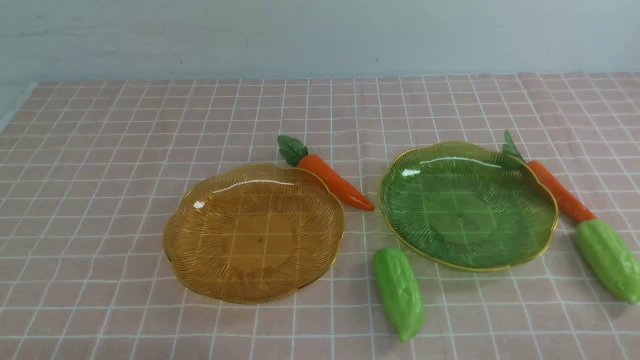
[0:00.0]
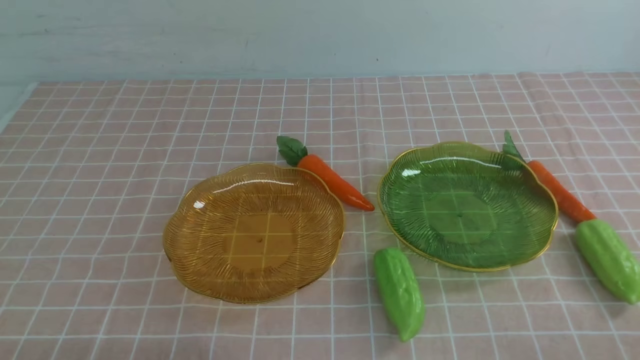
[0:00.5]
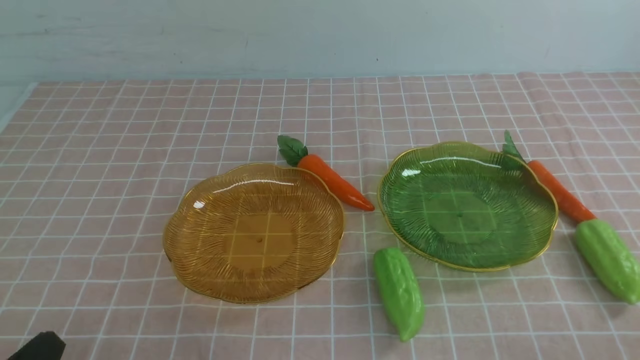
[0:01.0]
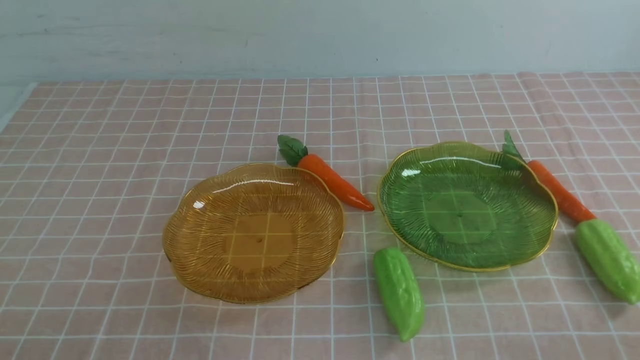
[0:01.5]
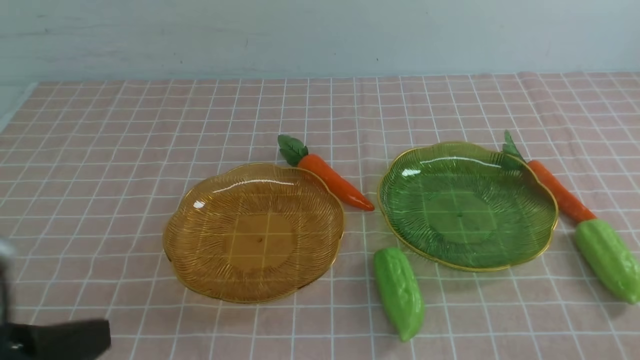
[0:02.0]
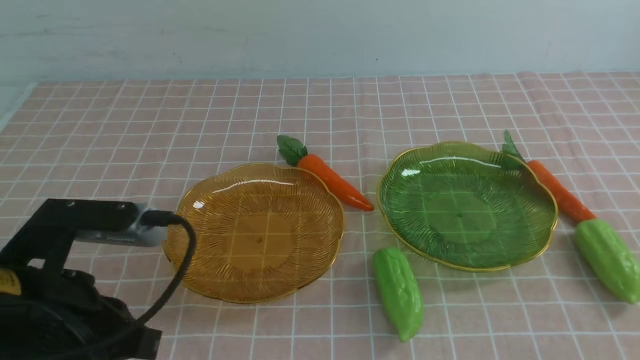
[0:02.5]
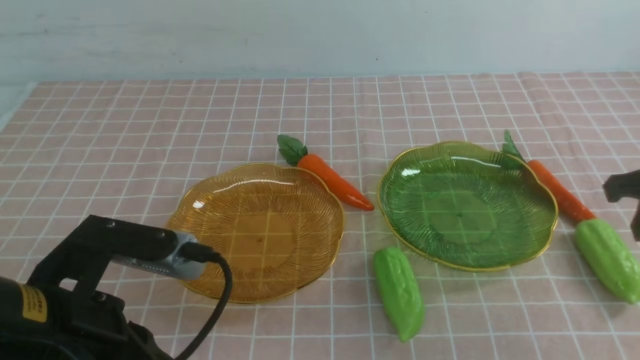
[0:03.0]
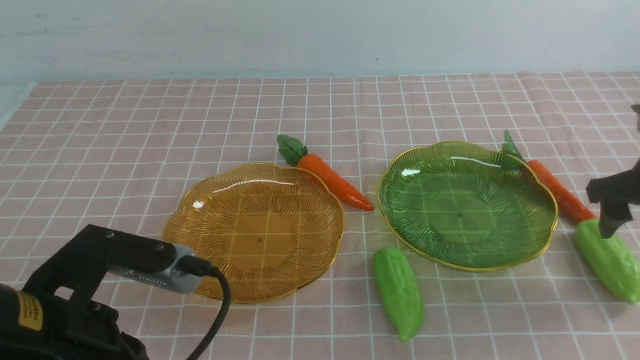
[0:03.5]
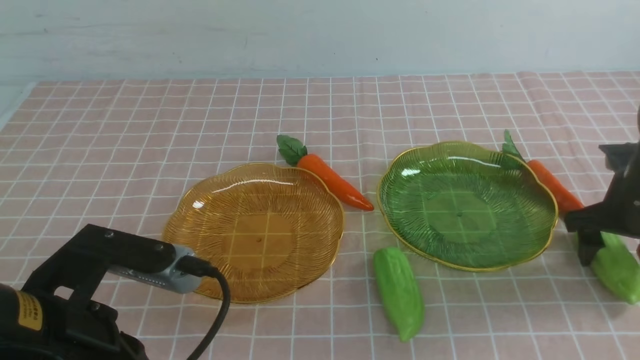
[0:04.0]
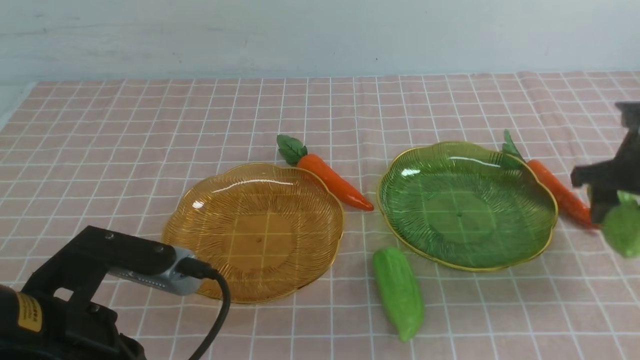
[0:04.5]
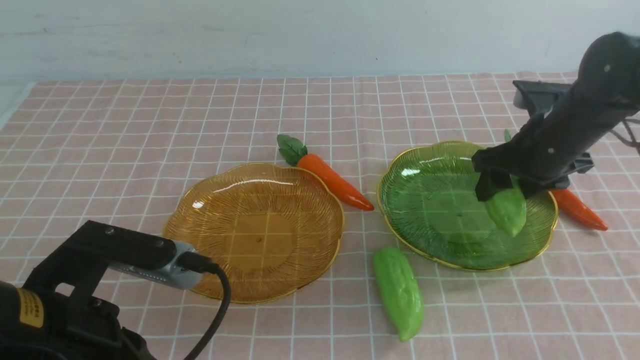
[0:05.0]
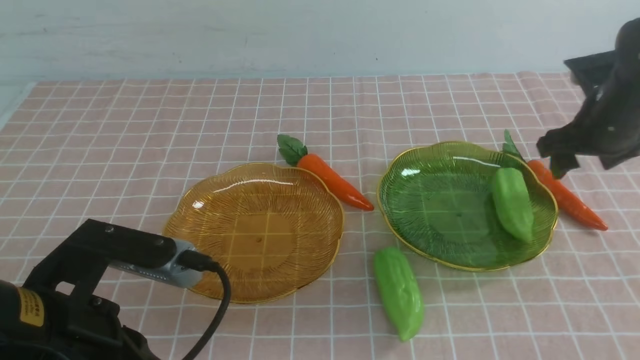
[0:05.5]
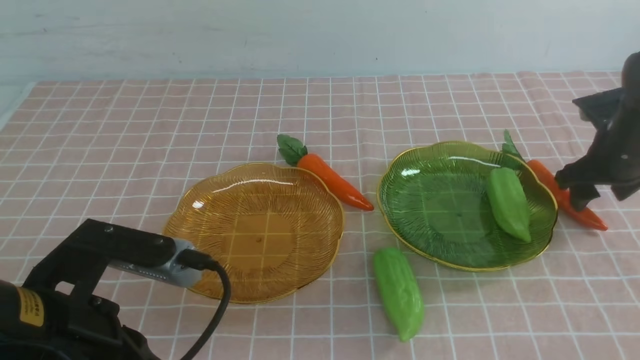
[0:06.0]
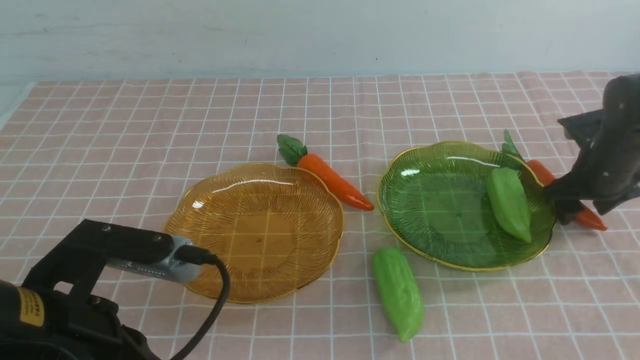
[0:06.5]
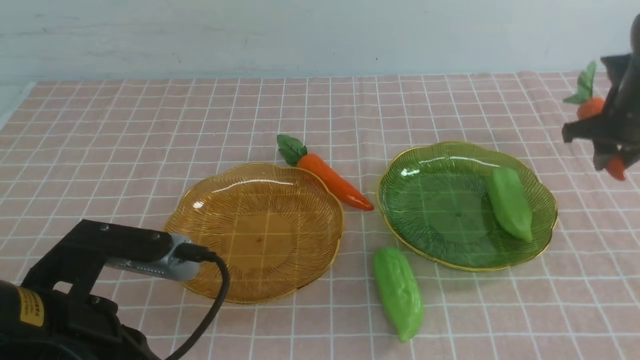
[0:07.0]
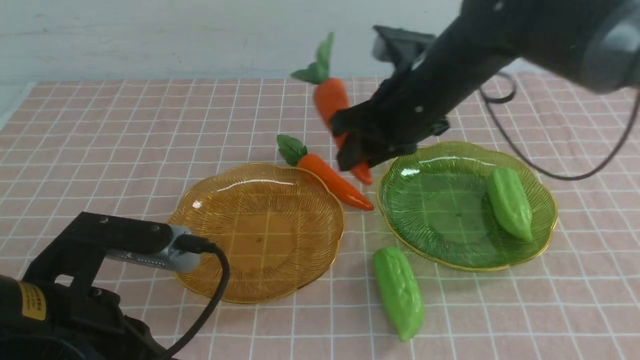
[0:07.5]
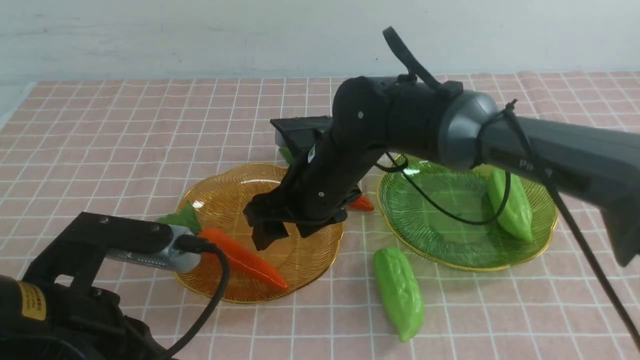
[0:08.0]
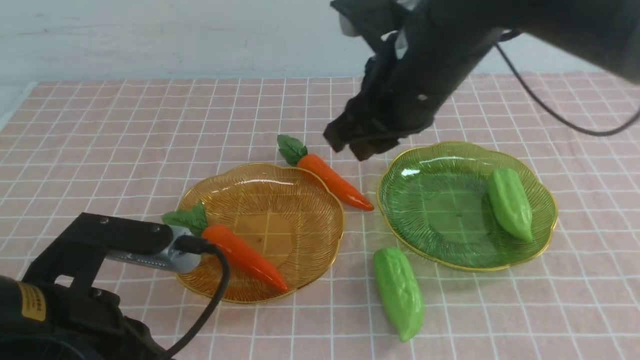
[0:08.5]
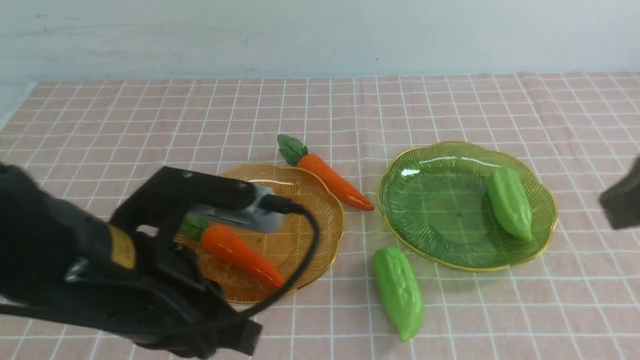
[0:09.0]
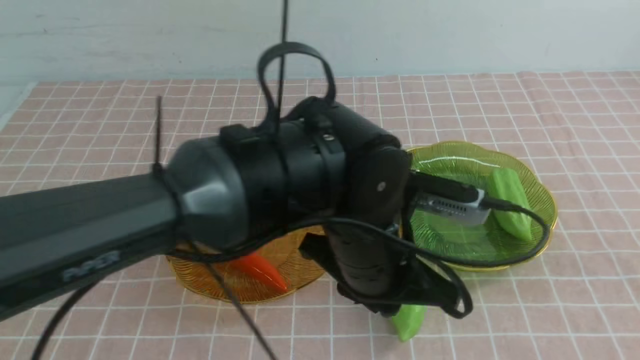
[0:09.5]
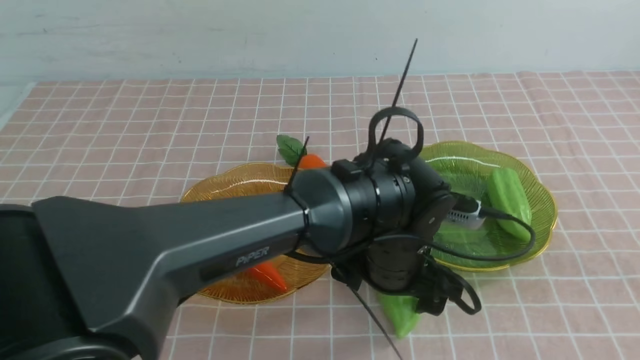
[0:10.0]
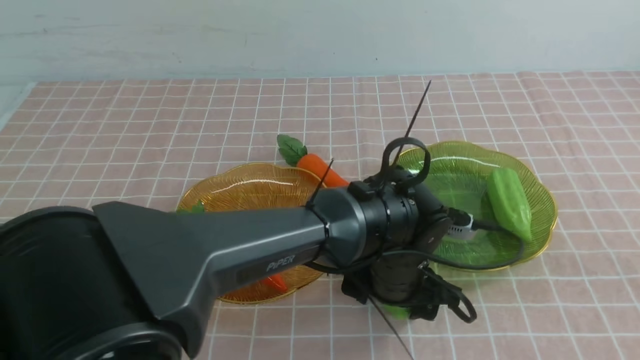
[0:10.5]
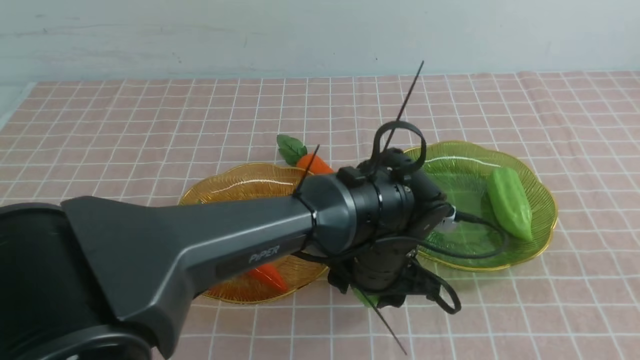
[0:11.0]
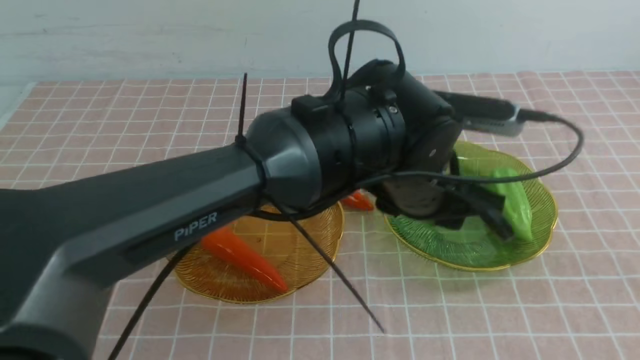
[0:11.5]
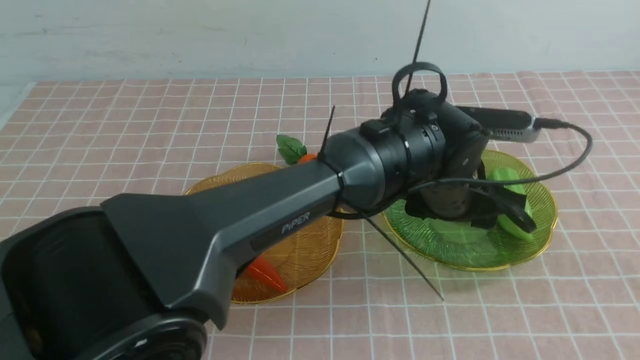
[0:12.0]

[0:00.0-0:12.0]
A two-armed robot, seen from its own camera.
Step, 0:00.0 to 0:05.0: Grab the chayote with your right arm and put it on the left plate.
Step, 0:05.5 to 0:07.5: use the right arm to grab a carrot and put it into the left plate.
0:00.0 to 0:02.0: The left gripper is displaced upward by approximately 10 cm.
0:02.0 to 0:04.0: The left gripper changes place by some 5 cm. The right gripper moves forward, some 30 cm, and opens.
0:04.0 to 0:06.0: The right gripper shifts some 5 cm forward, and goes to the left and returns, about 10 cm each way.
0:06.0 to 0:08.0: The right gripper is displaced to the left by about 35 cm, and closes, then reopens.
0:08.0 to 0:10.0: The right gripper shifts approximately 40 cm to the right, backward and upward, and closes up, while the left gripper is displaced to the right and forward by some 30 cm, and opens.
0:10.0 to 0:12.0: The left gripper shifts some 5 cm forward.

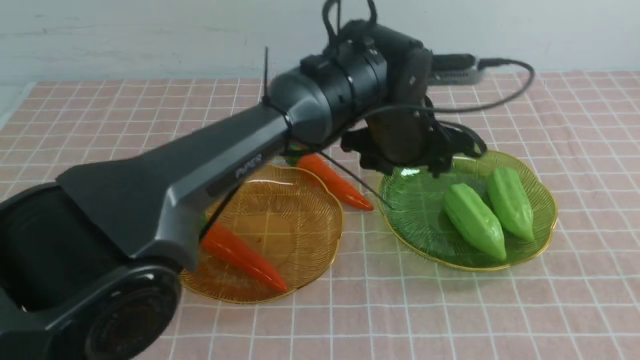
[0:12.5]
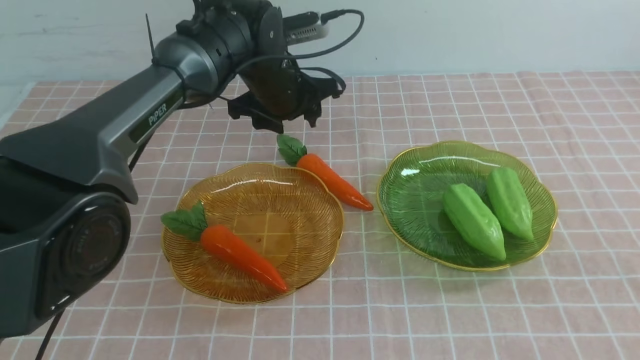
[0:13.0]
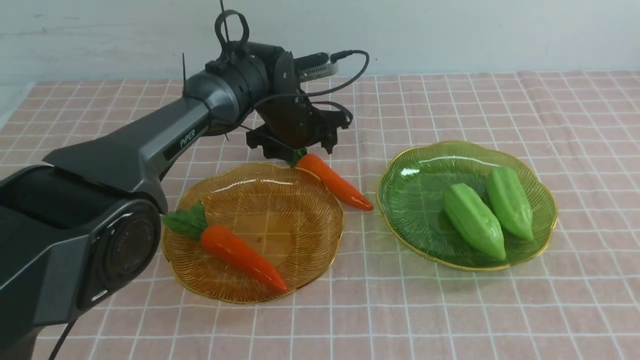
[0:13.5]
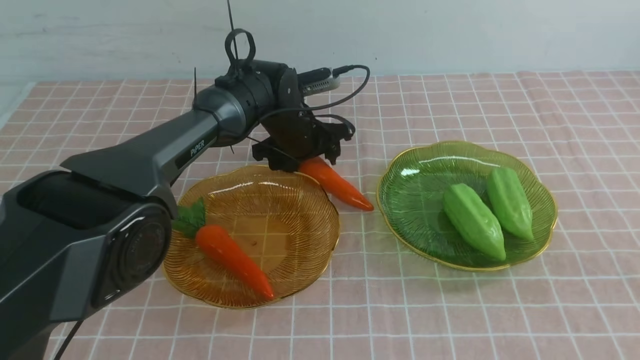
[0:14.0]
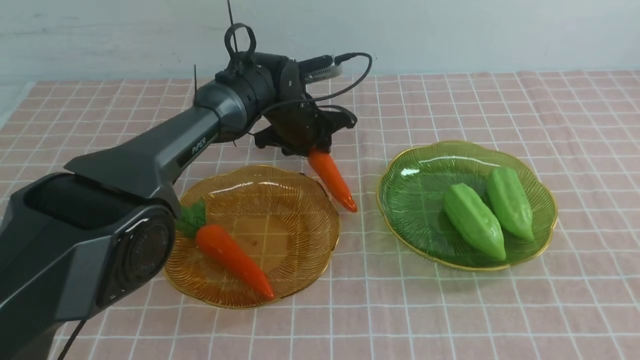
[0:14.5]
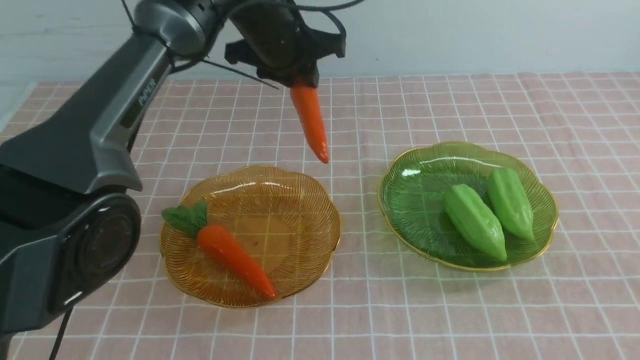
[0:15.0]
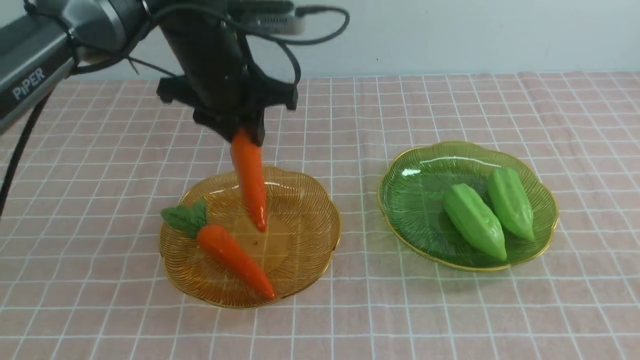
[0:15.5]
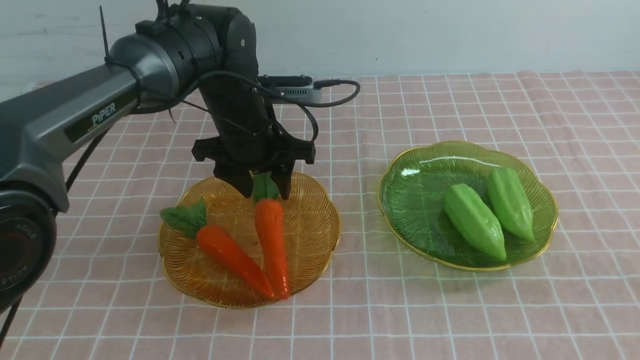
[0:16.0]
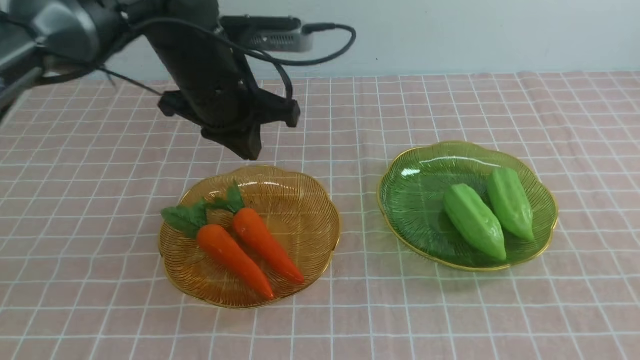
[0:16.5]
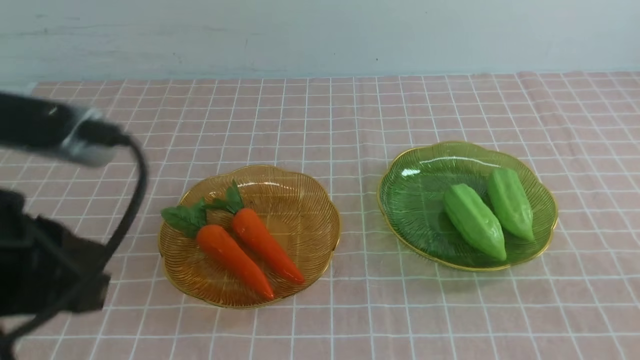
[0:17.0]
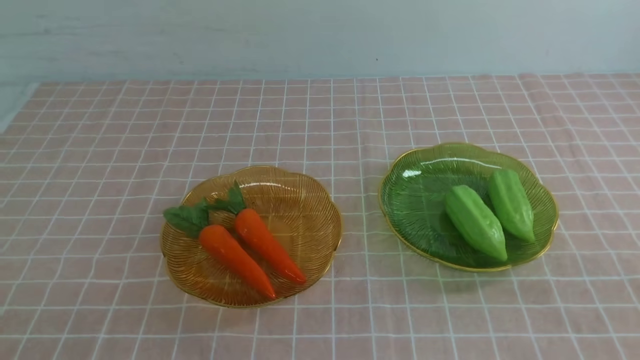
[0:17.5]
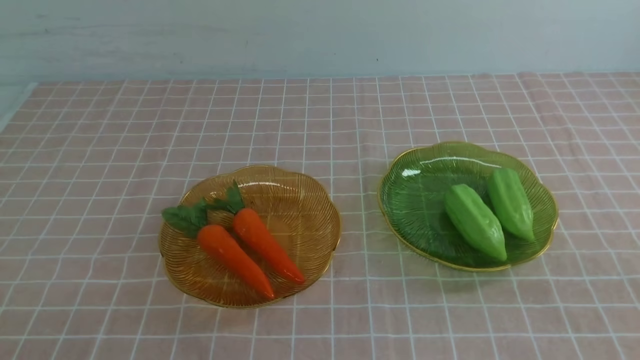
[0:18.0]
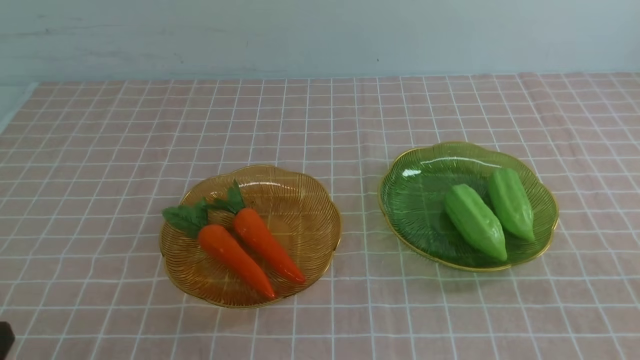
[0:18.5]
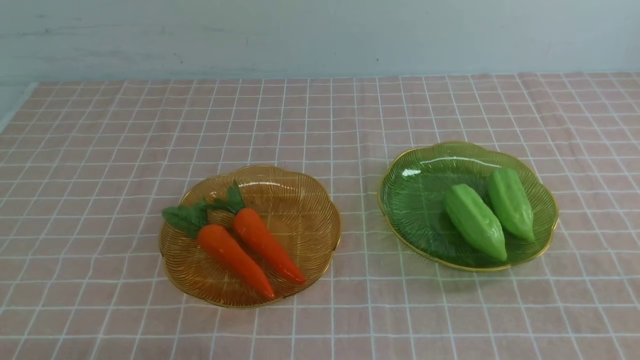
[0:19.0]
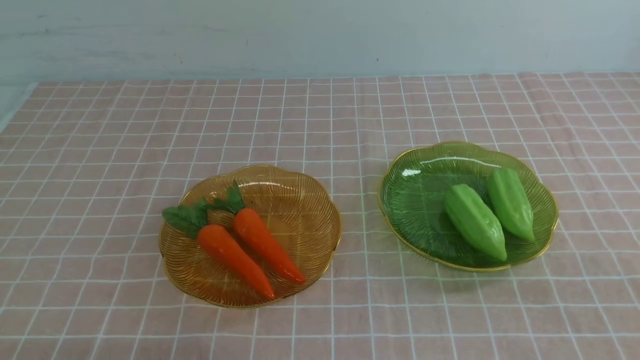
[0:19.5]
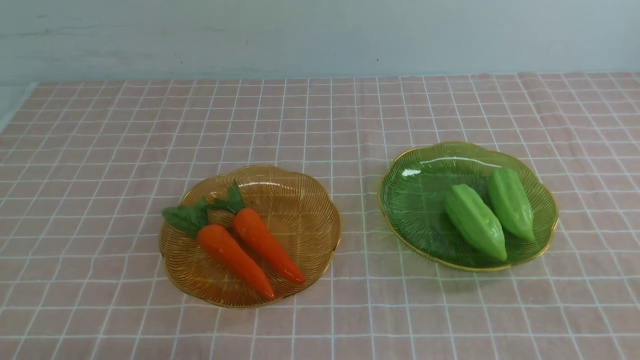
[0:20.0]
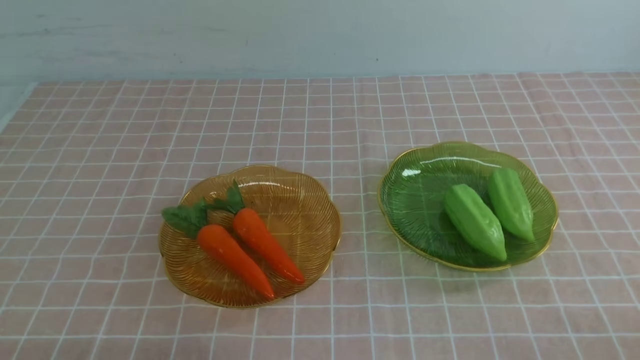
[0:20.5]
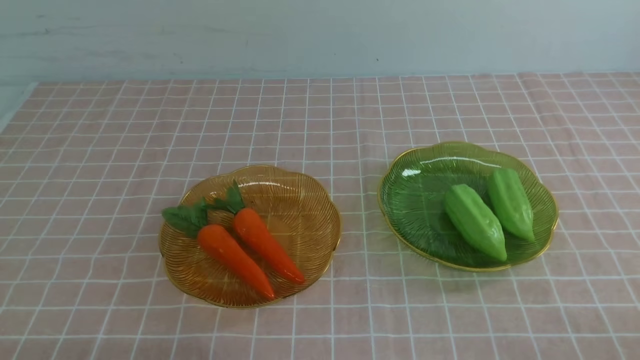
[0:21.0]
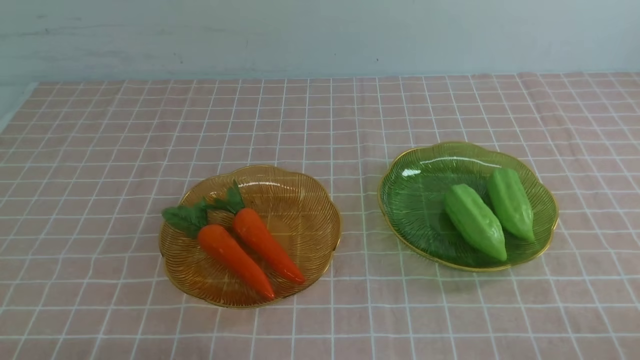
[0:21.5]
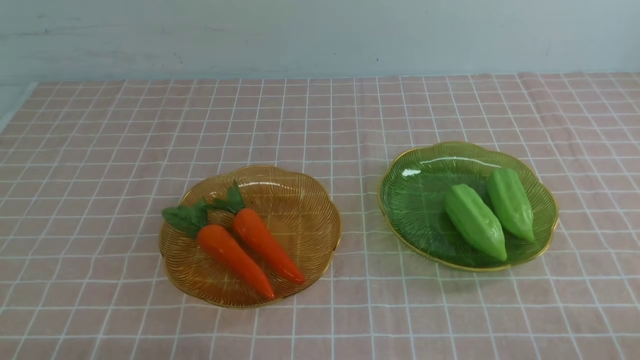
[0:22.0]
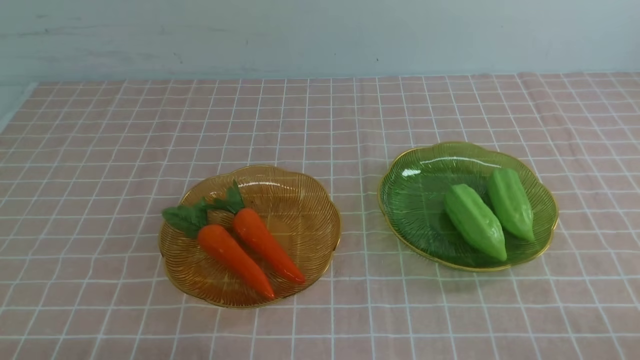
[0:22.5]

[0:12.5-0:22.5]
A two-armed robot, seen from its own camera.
Step, 0:12.5 to 0:16.0: use the left arm to grab a carrot and put it into the left plate.
0:12.5 to 0:14.5: The left gripper heads to the left and forward, covering some 15 cm, and closes.
0:14.5 to 0:16.5: The right gripper changes place by approximately 5 cm. The left gripper heads backward, to the left and upward, covering approximately 35 cm, and closes.
0:16.5 to 0:18.5: The left gripper shifts about 25 cm downward, backward and to the left.
0:20.5 to 0:22.5: Both grippers stay about where they are.
